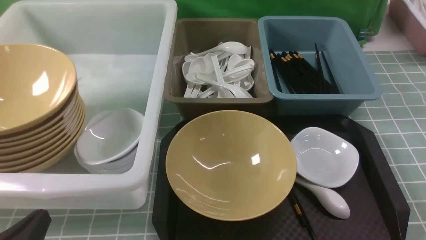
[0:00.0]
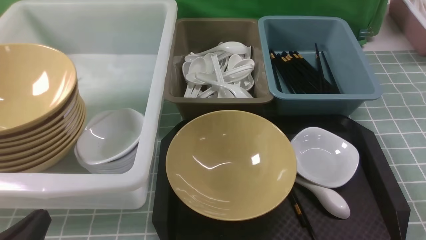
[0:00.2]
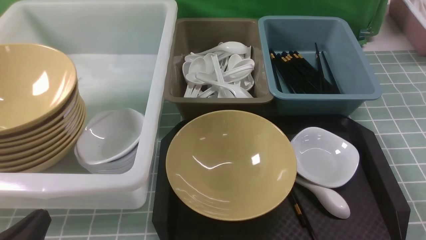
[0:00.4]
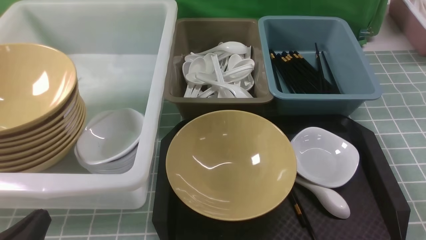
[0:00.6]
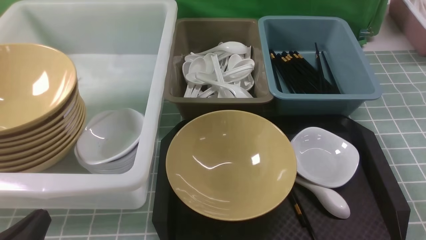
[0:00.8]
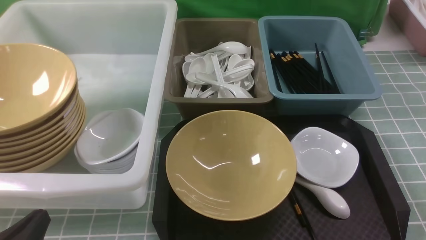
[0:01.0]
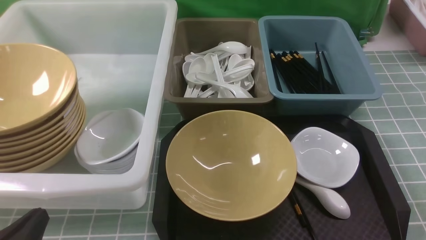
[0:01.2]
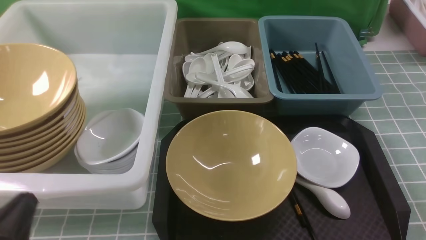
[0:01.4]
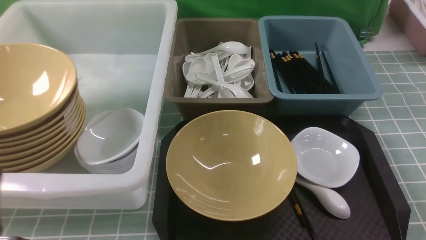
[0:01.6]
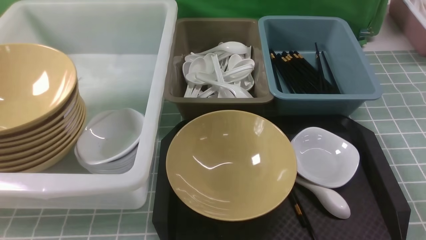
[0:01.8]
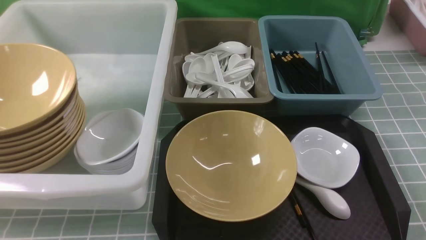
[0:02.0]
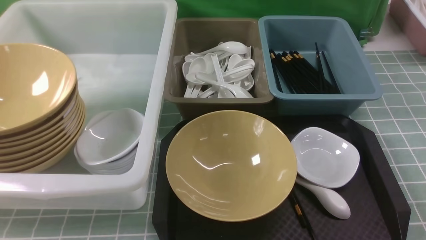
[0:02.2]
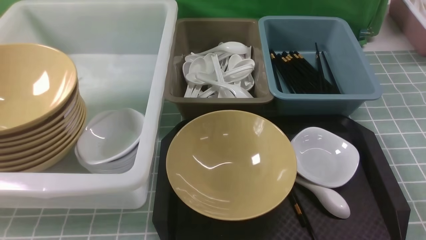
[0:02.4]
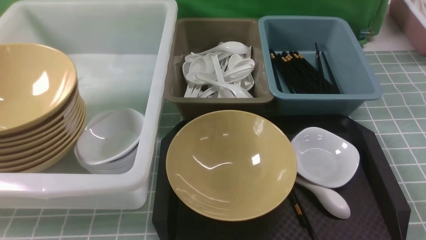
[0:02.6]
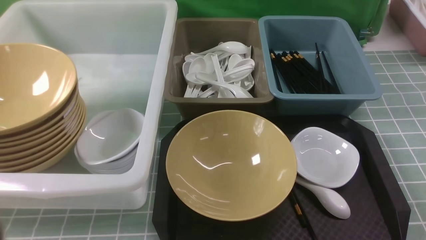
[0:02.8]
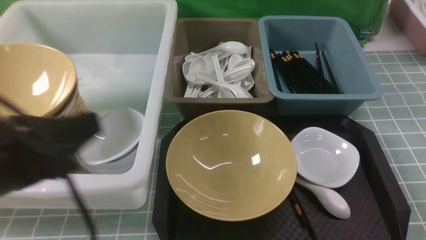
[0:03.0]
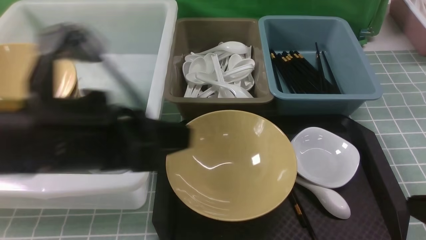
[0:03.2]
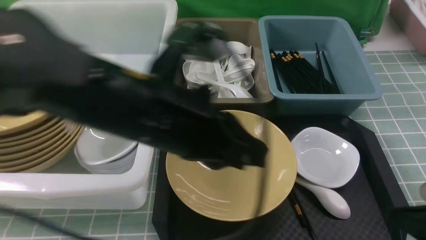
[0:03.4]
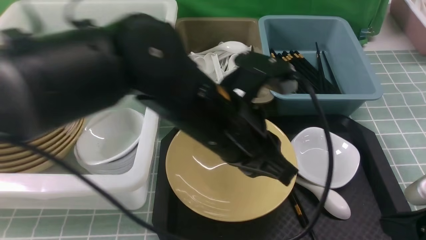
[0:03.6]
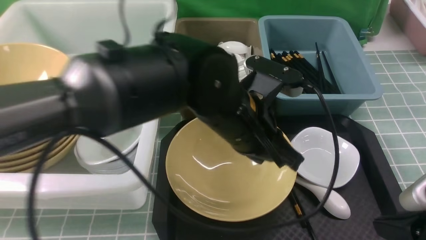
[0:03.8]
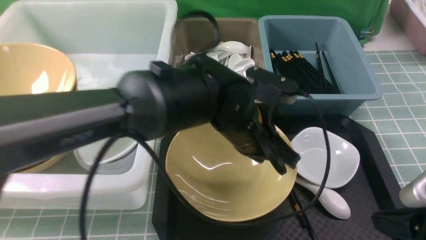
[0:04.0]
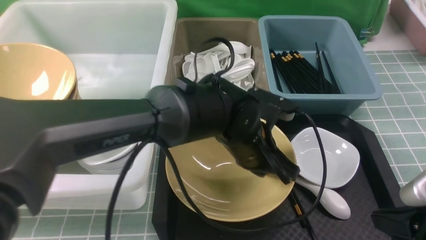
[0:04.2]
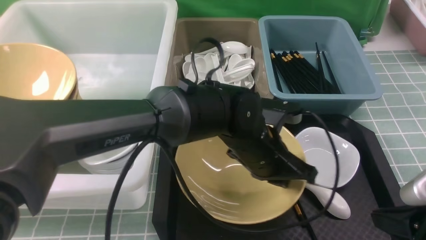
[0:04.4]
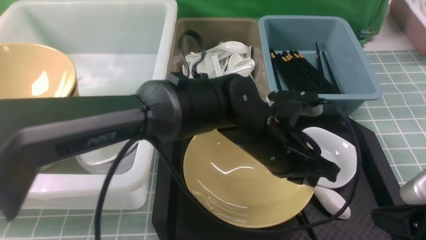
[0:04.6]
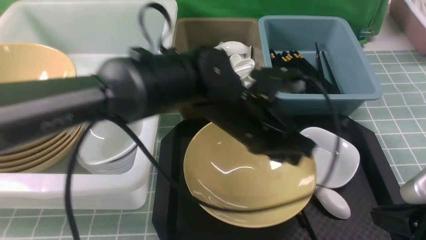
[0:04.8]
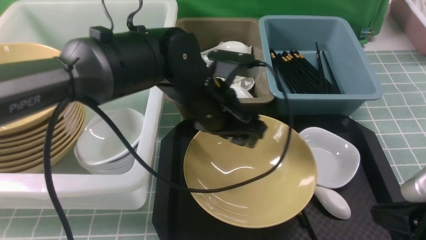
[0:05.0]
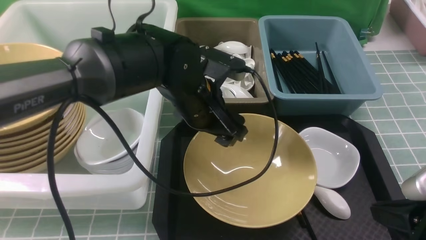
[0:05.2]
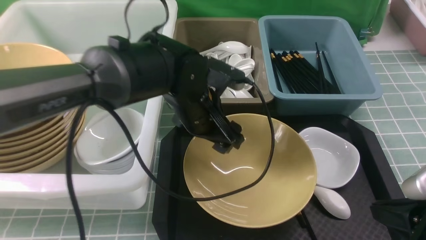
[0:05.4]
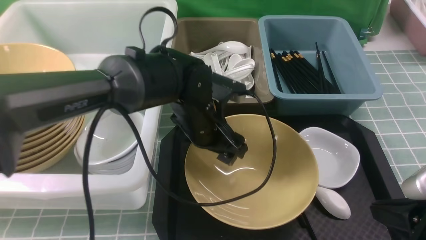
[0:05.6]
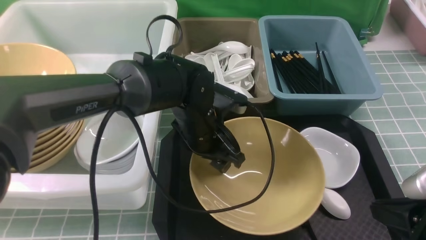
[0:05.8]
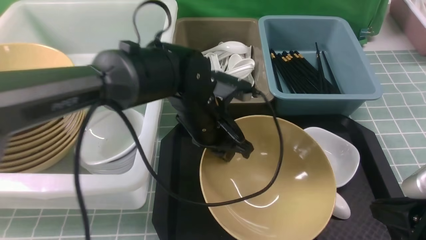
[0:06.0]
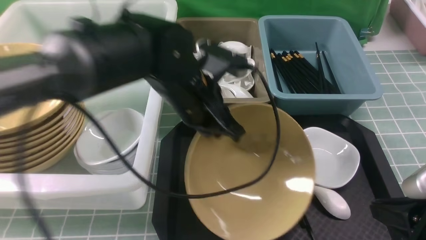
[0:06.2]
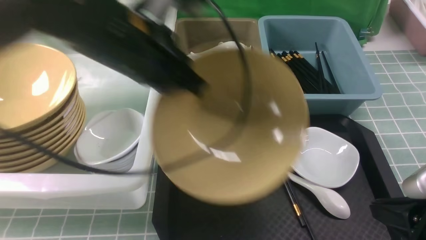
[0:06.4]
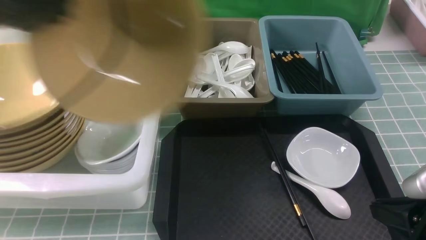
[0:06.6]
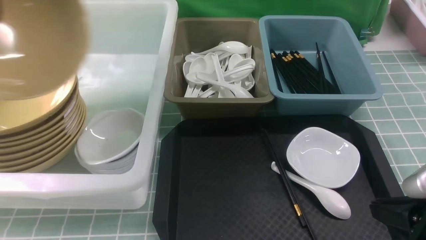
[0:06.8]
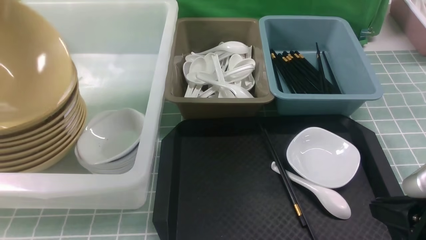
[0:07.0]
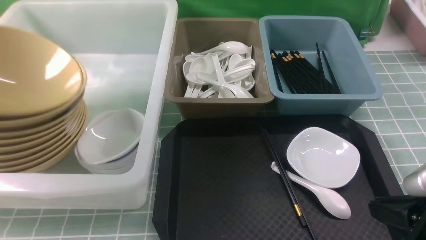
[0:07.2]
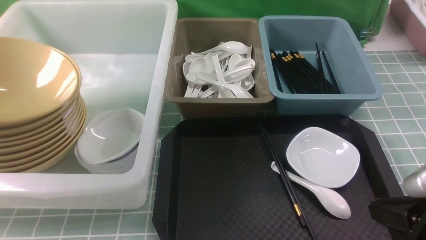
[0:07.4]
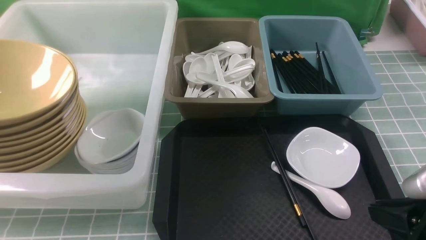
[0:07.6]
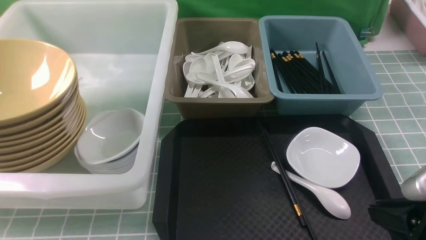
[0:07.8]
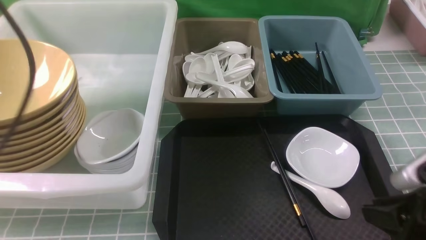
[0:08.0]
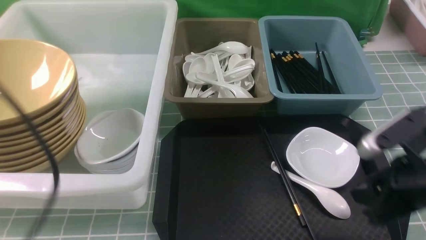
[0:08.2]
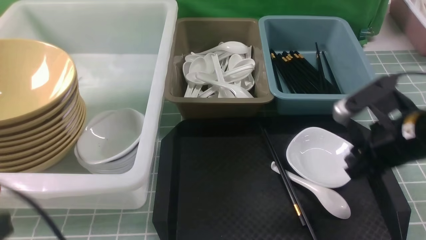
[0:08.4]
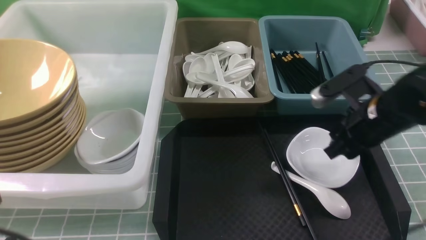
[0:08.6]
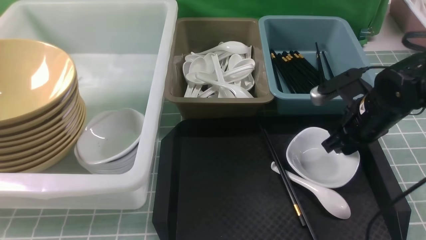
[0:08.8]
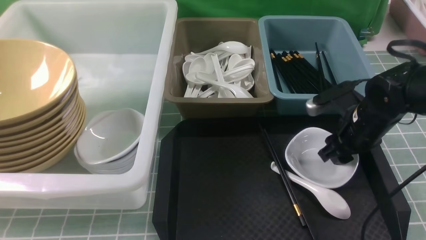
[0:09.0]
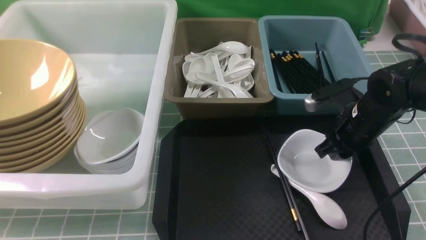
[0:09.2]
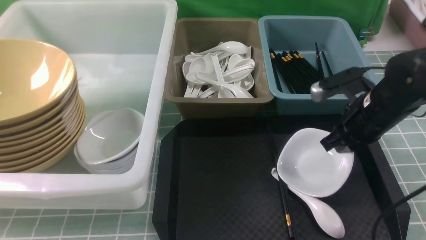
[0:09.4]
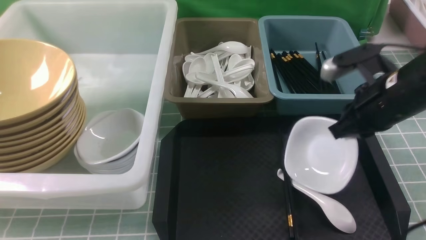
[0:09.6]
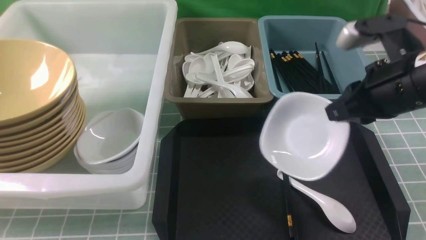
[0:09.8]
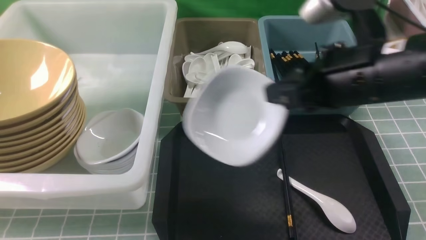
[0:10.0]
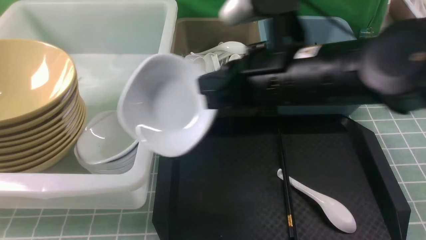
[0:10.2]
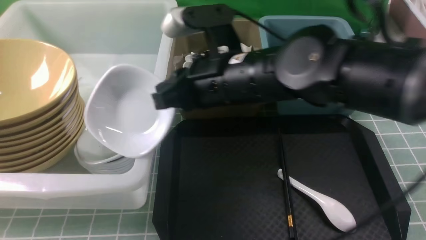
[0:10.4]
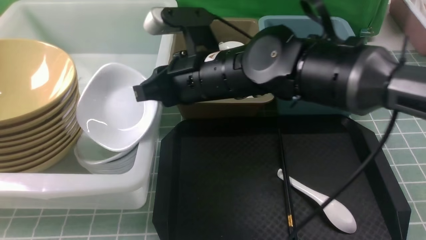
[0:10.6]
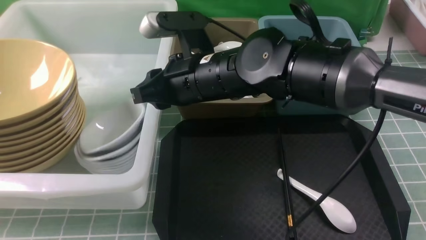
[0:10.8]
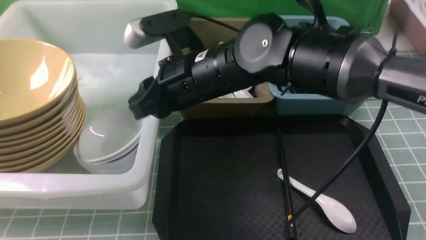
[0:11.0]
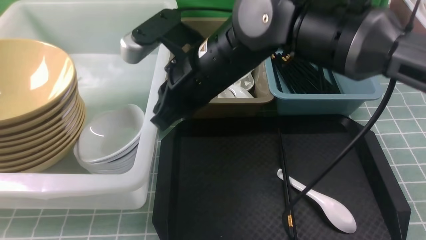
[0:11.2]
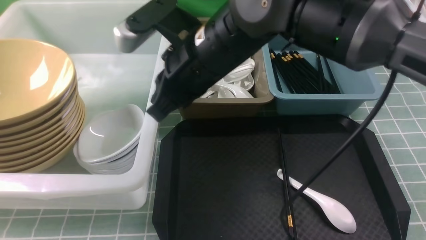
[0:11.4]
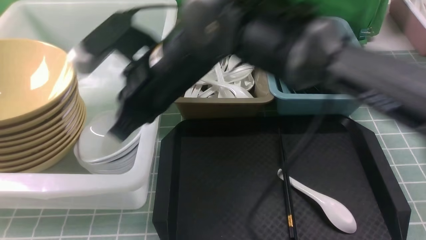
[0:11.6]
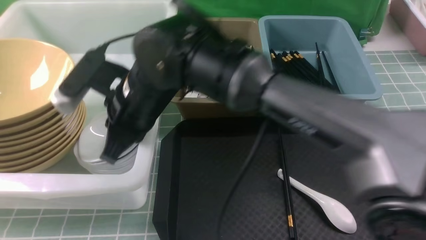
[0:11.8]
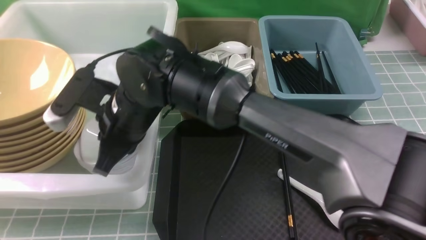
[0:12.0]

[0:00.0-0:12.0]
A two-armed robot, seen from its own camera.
Task of the whole recording: on blue table put chopsticks spoon bowls plates into blue grey white boxes.
Step, 0:00.0 to 0:06.2: use the left arm to grab the yellow noodle bowl on the left.
Step, 0:06.4 to 0:07.4: use the left arm to put the noodle bowl into the large storage box on the left.
Step, 0:07.6 to 0:09.4: use the right arm to grab the plate.
Step, 0:09.6 to 0:11.0: use the right arm to put the plate into the large storage box on the left.
0:00.0 to 0:01.6: The left gripper moves upward, approximately 5 cm.
0:01.6 to 0:03.0: The left gripper shifts about 15 cm upward, forward and to the right.
0:03.0 to 0:04.4: The left gripper heads to the right, downward and forward, covering approximately 30 cm. Meanwhile the right gripper is displaced downward by about 5 cm.
0:04.4 to 0:06.0: The left gripper goes about 10 cm to the left and upward, and opens, then closes once more.
0:06.0 to 0:07.6: The left gripper shifts approximately 30 cm to the left, and opens up.
0:07.6 to 0:09.0: The left gripper goes approximately 25 cm backward, downward and to the right, and closes its fingers. The right gripper is displaced forward by some 20 cm, and opens up.
0:09.0 to 0:10.4: The right gripper shifts approximately 25 cm to the left and upward, and closes up.
0:10.4 to 0:12.0: The right gripper shifts some 15 cm to the left and downward, and opens and closes again.

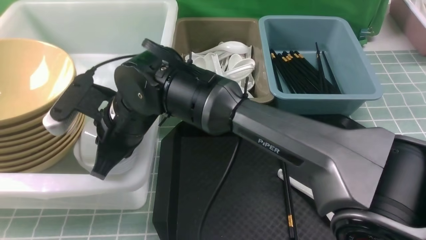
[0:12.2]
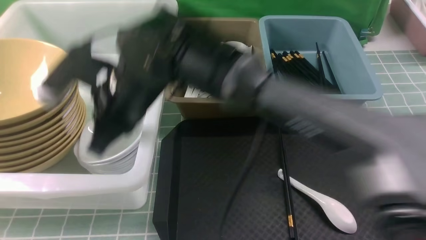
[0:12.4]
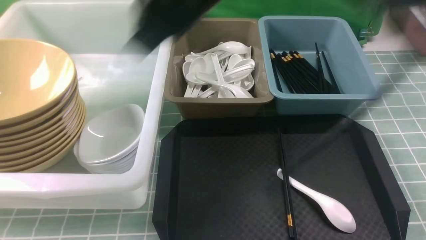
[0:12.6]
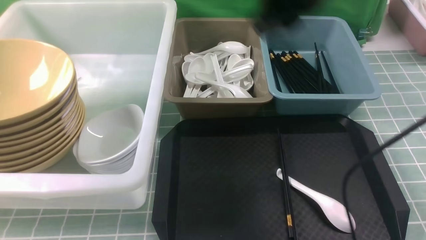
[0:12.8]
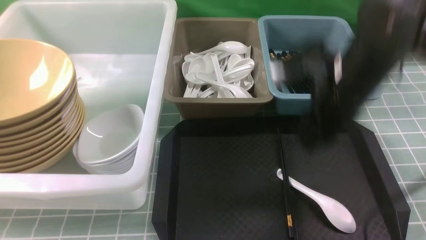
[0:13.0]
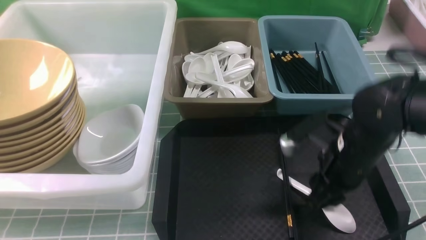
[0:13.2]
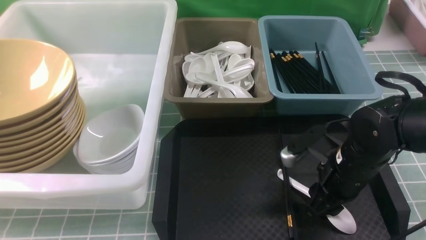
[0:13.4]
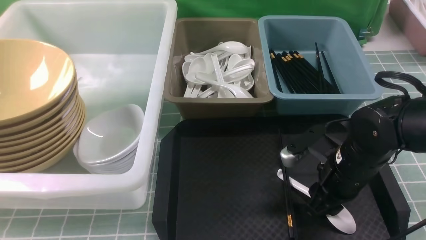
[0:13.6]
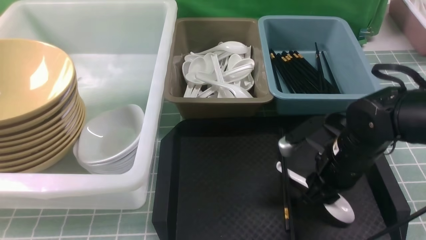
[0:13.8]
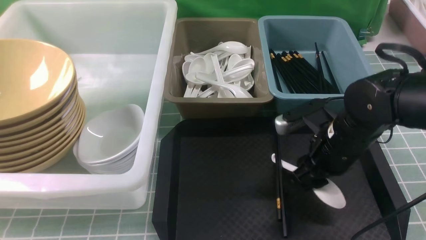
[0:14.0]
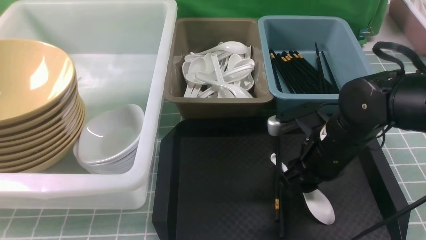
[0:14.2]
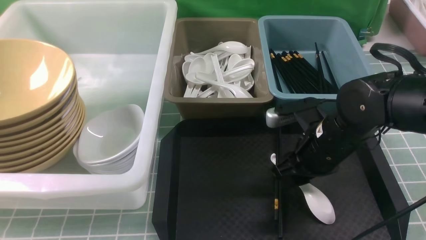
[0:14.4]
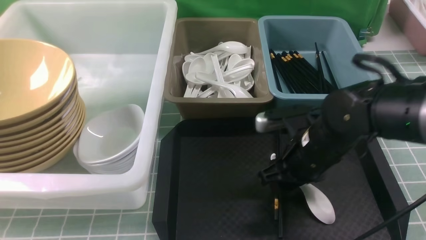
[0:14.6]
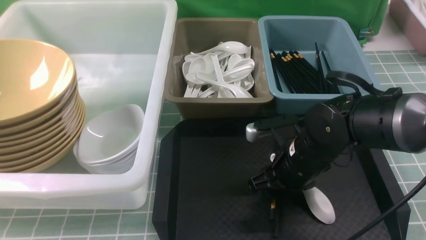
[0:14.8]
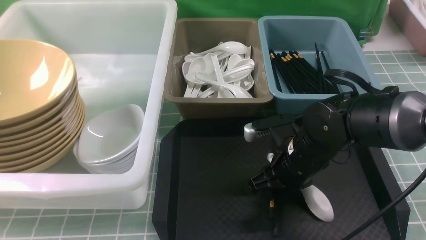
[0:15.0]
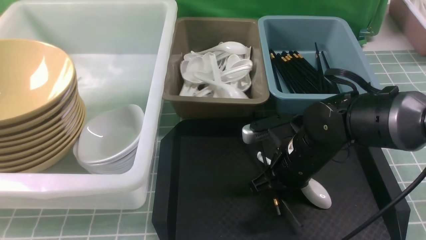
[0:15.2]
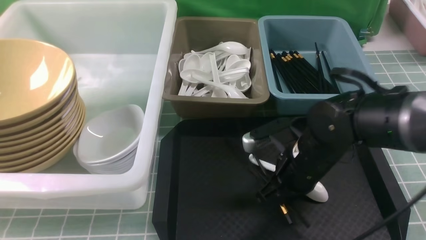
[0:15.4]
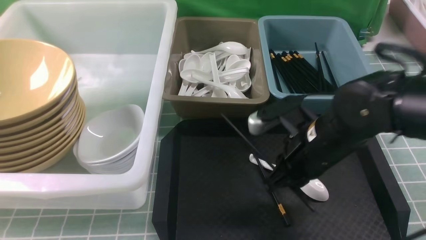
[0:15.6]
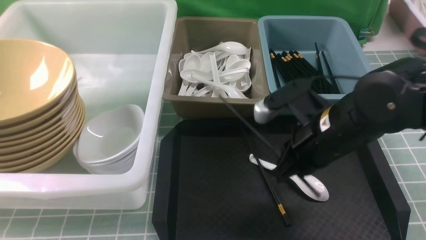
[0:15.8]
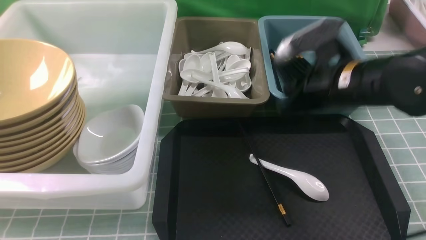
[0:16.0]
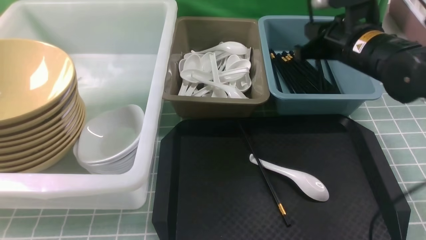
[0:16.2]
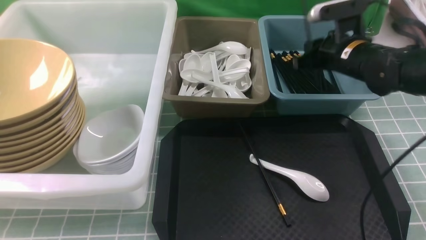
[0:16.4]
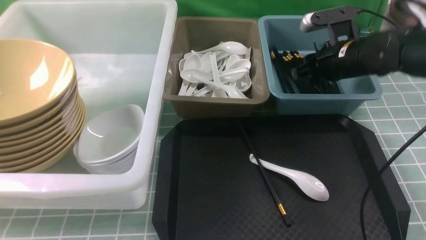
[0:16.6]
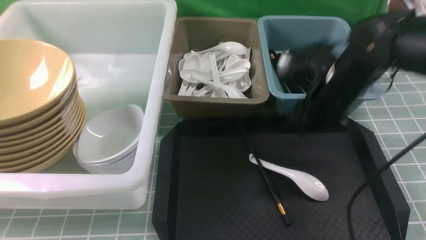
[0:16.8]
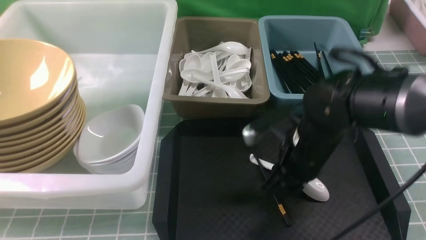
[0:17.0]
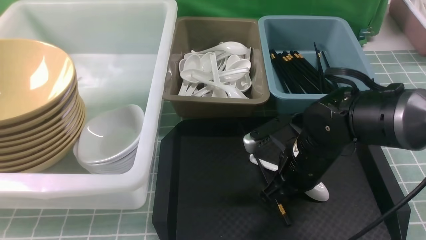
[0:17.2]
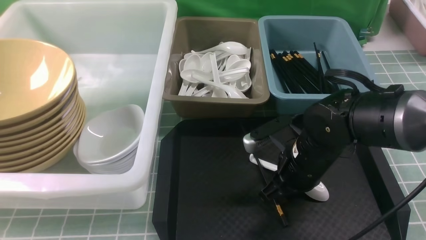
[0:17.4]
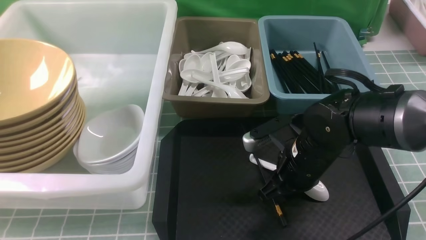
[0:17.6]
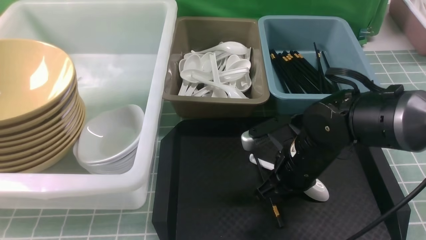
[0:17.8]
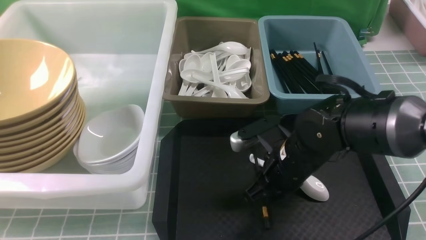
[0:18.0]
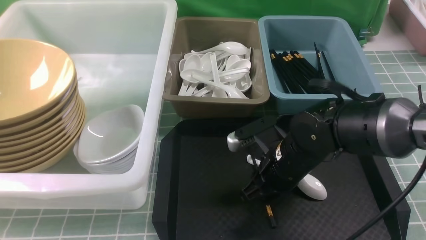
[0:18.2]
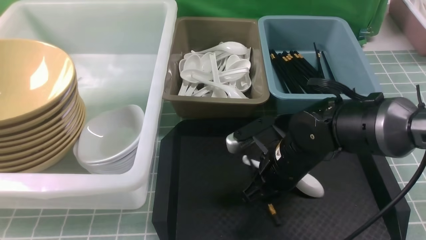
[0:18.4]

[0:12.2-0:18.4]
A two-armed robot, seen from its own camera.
Task of the whole recording: on blue table put chopsticks spoon bowls plates into blue grey white boxes.
Step, 0:12.2 to 0:15.4: use the right arm to grab a chopstick.
Step, 0:15.8 to 0:16.6: use the right arm to put a chopstick into the small storage box on the right.
0:12.2 to 0:13.8: The right gripper shifts about 30 cm to the right, and opens its fingers.
0:13.8 to 0:15.4: The right gripper goes about 5 cm to the left, and closes its fingers.
0:15.4 to 0:16.8: The right gripper is displaced forward by approximately 5 cm, and opens up.
0:16.8 to 0:18.4: The right gripper travels backward and to the left by approximately 10 cm, and closes its fingers.
